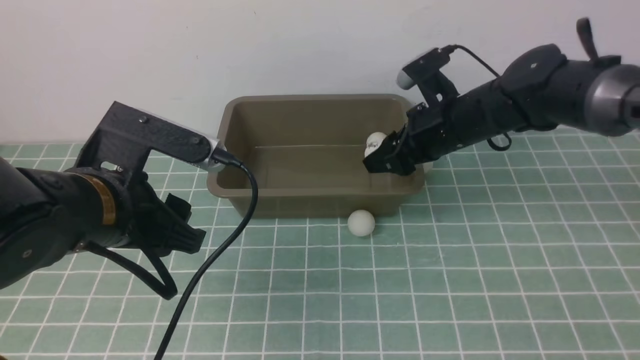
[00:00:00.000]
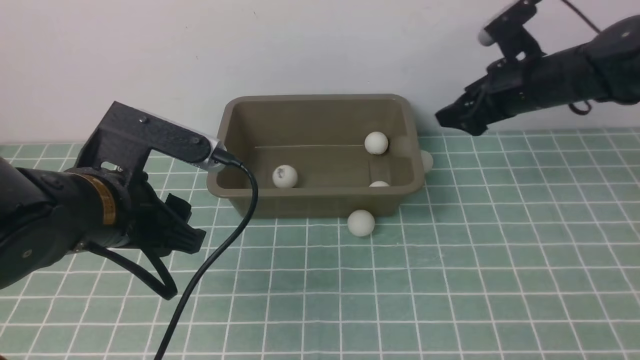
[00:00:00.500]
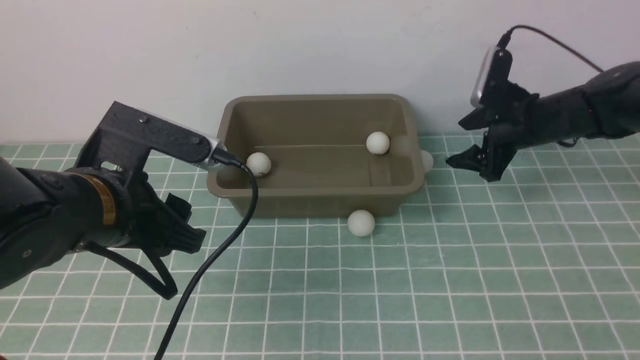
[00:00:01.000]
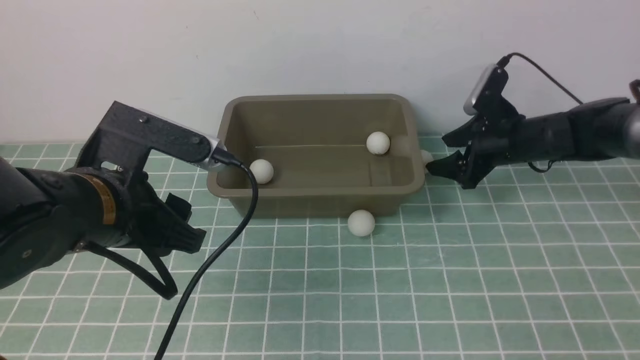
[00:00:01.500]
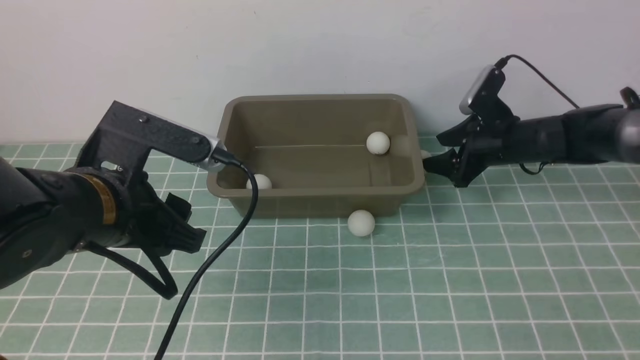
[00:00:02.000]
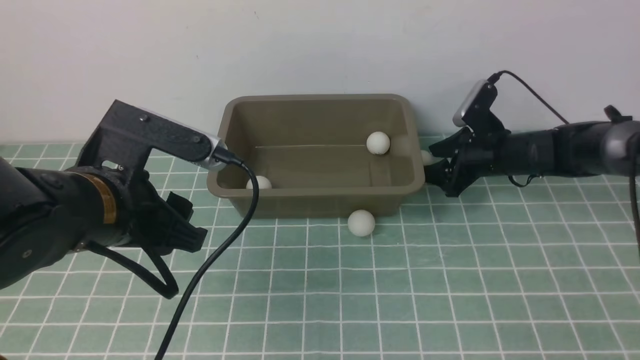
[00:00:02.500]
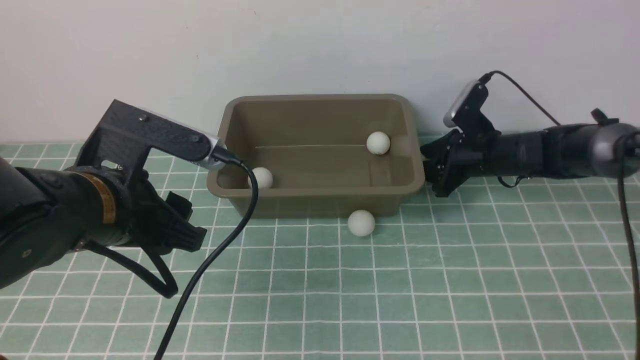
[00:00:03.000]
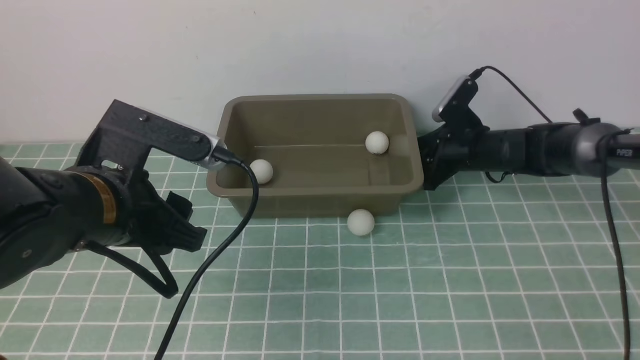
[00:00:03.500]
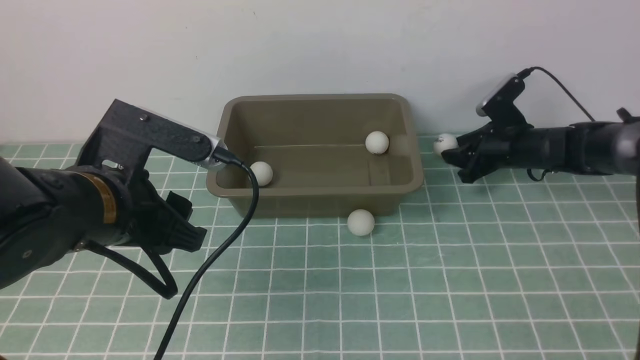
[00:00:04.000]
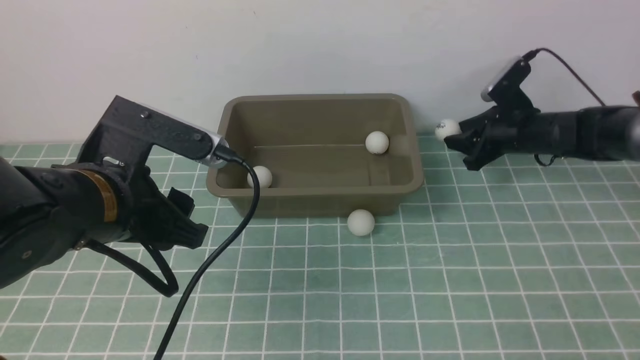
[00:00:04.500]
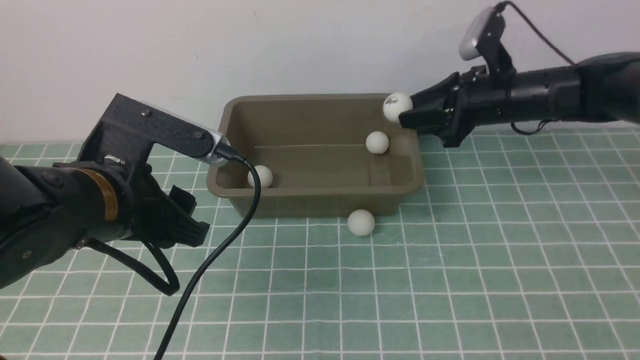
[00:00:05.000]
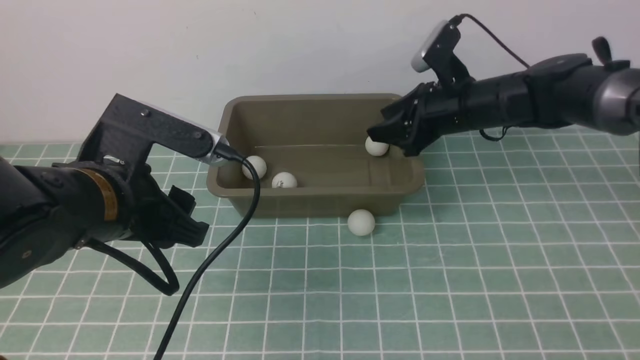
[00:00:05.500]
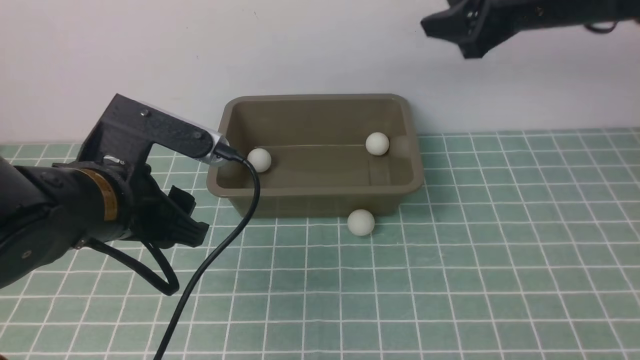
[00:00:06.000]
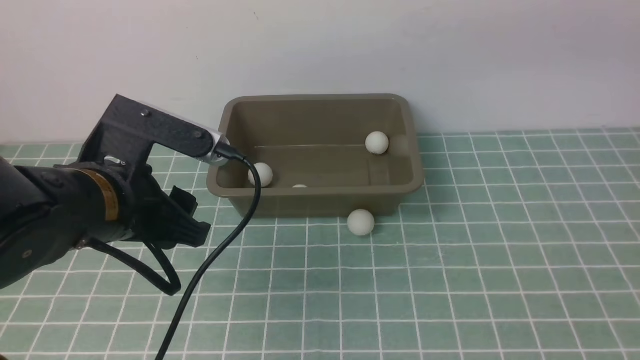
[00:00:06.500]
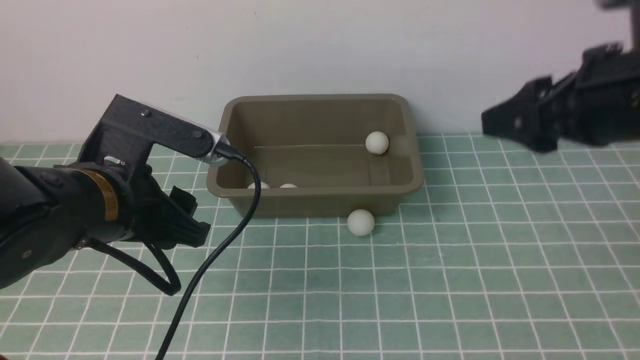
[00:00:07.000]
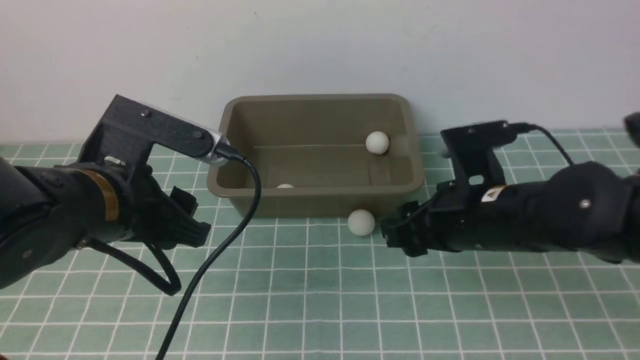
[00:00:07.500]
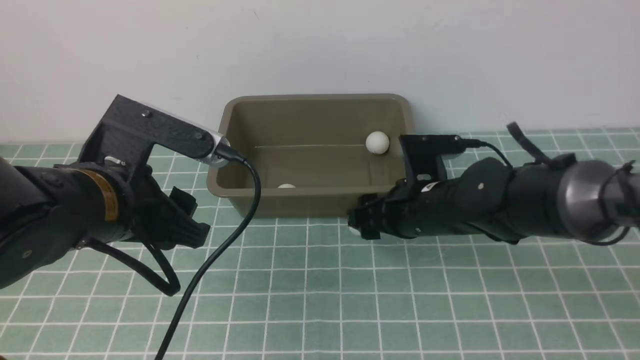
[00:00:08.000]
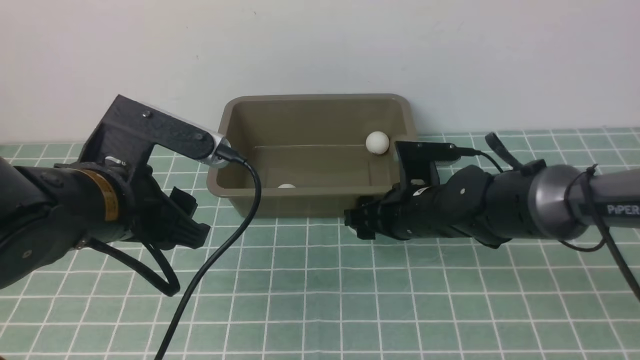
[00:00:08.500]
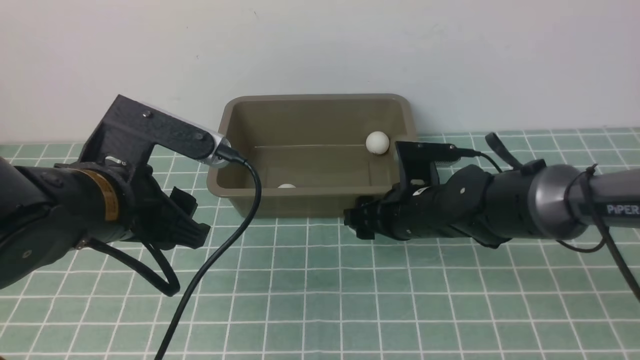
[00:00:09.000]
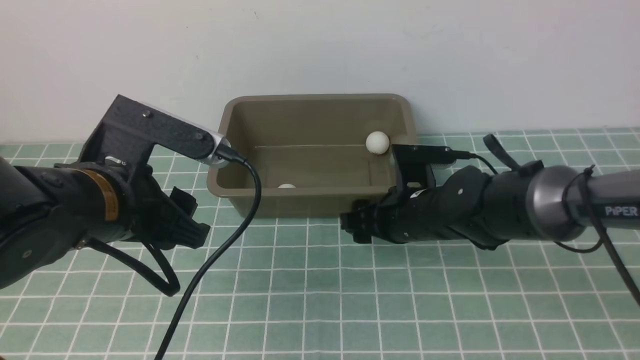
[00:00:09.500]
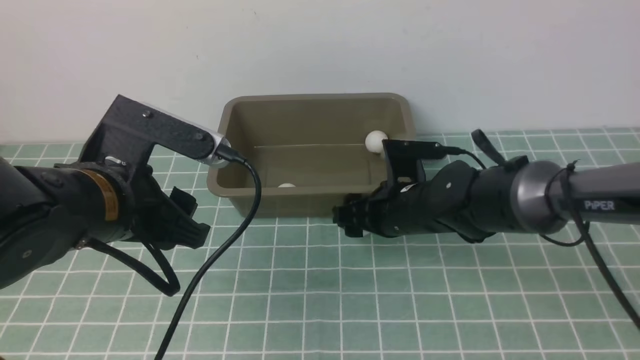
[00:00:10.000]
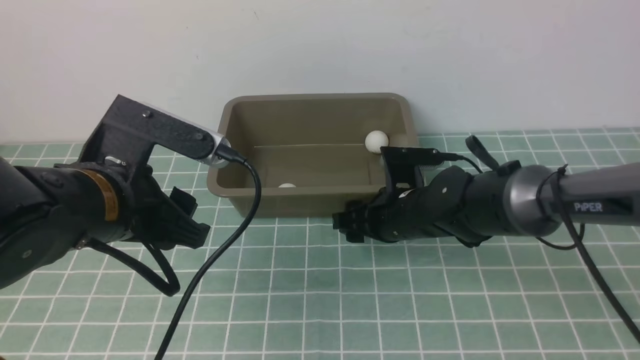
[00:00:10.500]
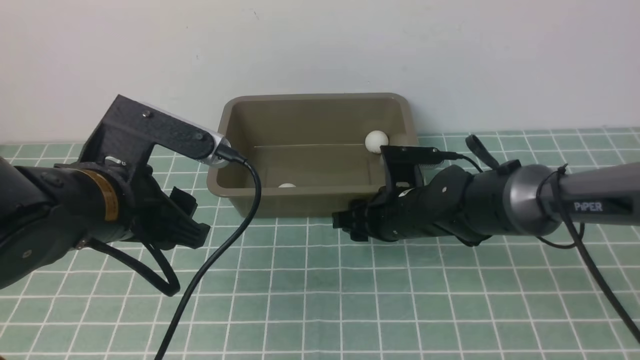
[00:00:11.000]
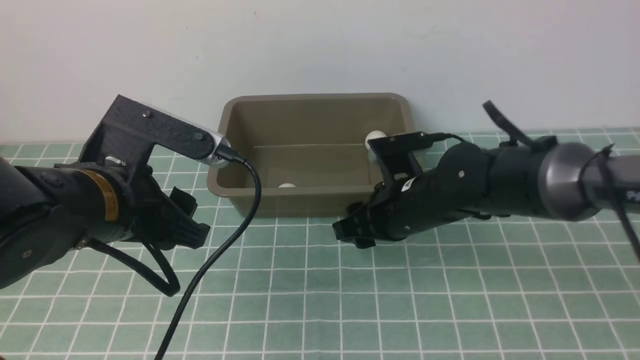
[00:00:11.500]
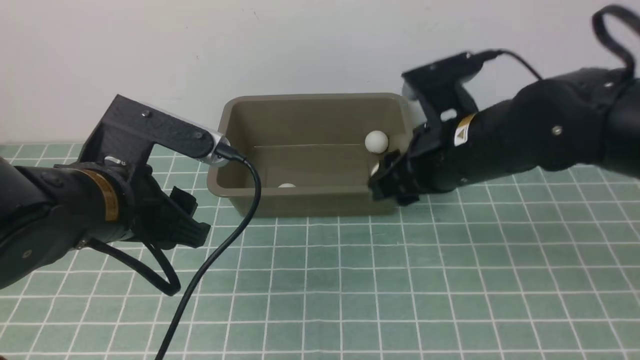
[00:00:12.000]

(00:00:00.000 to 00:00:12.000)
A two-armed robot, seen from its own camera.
Step, 00:00:00.500 - 00:00:04.500: use the right arm to clamp the table tennis ball closest to it.
Step, 00:00:06.000 - 00:00:11.500: use the right arm to clamp the table tennis ball closest to it.
00:00:00.000 - 00:00:02.000: The right gripper shifts some 15 cm to the right, downward and forward.
00:00:02.000 - 00:00:04.000: The right gripper closes up.
00:00:04.000 - 00:00:06.000: The right gripper goes some 30 cm upward and backward, and opens its fingers.
00:00:06.000 - 00:00:08.000: The right gripper travels downward and to the left by roughly 25 cm.
00:00:08.000 - 00:00:10.000: The grippers move only a little.
00:00:10.000 - 00:00:12.000: The right gripper goes about 10 cm upward, and closes up.

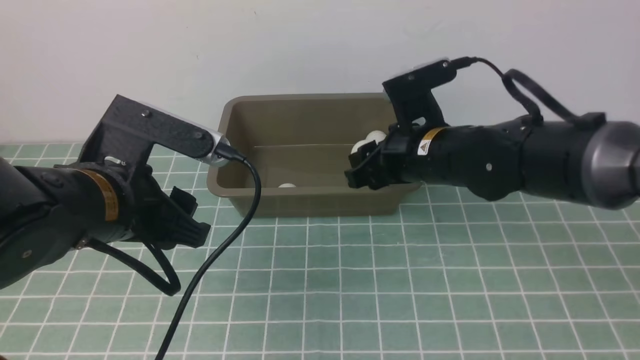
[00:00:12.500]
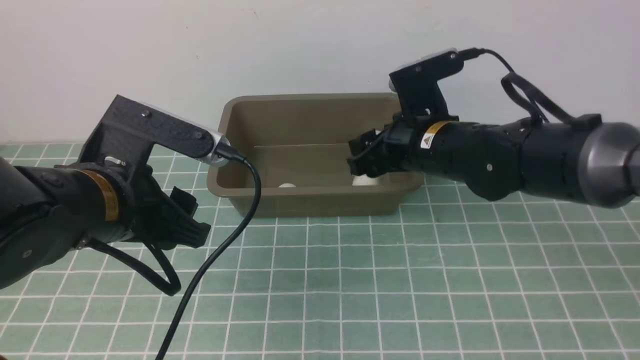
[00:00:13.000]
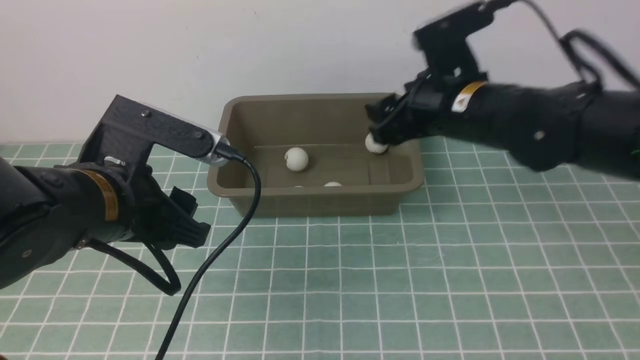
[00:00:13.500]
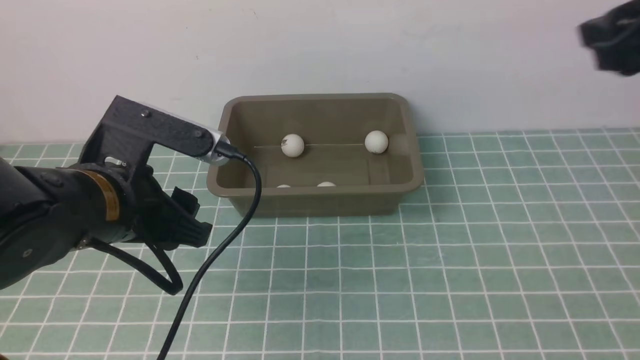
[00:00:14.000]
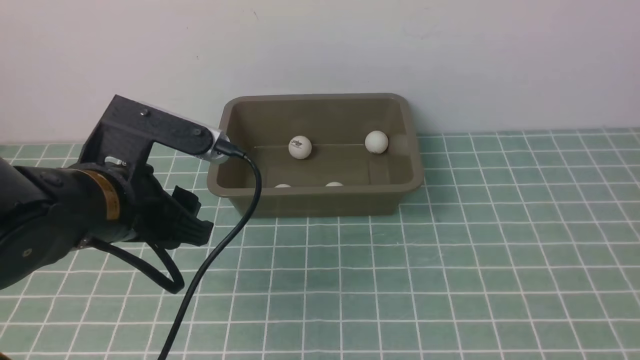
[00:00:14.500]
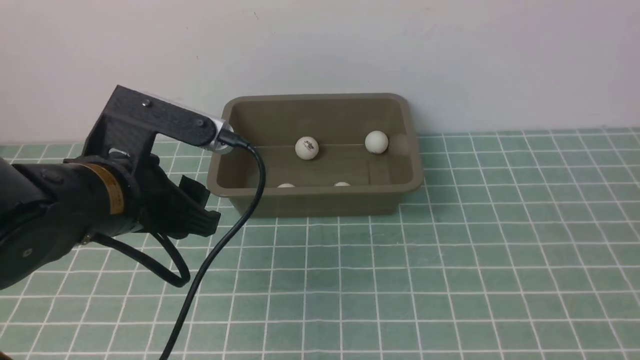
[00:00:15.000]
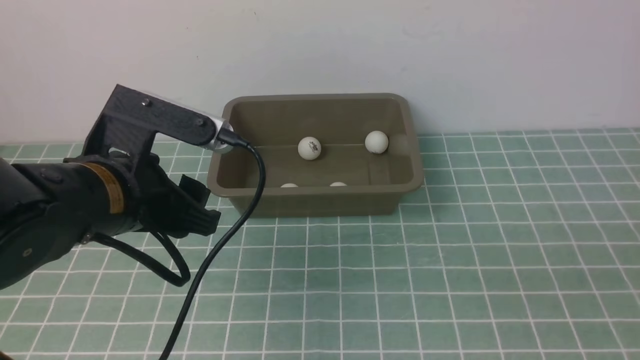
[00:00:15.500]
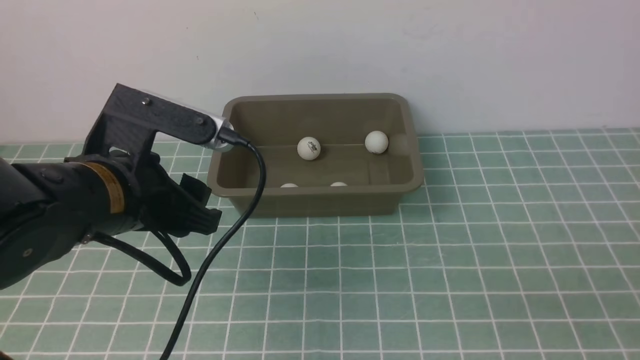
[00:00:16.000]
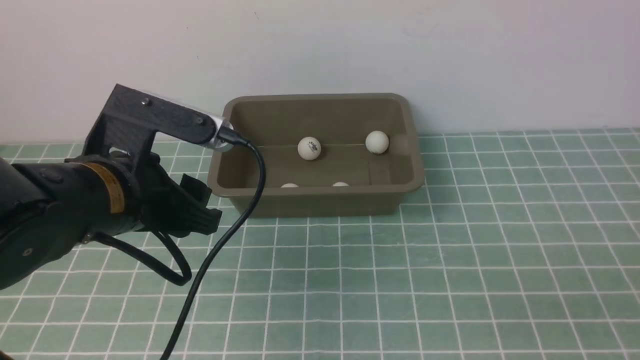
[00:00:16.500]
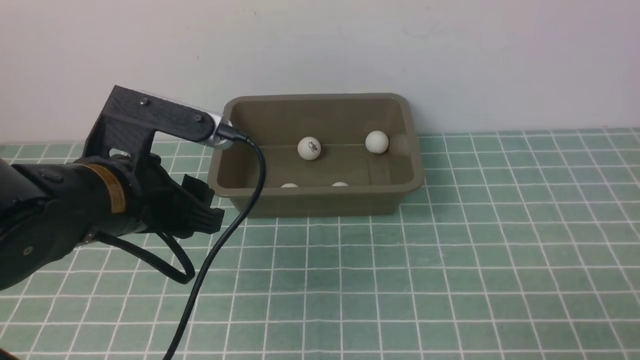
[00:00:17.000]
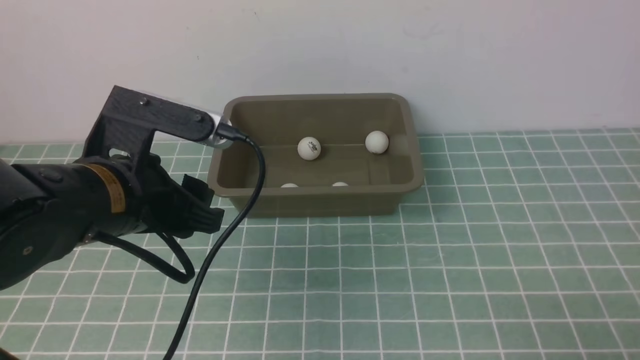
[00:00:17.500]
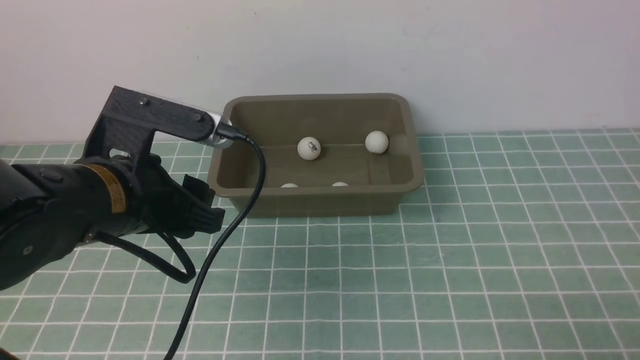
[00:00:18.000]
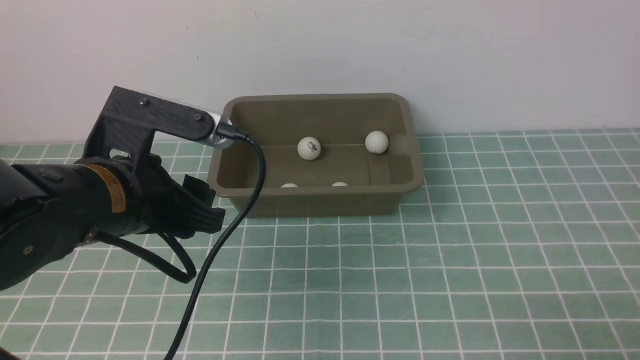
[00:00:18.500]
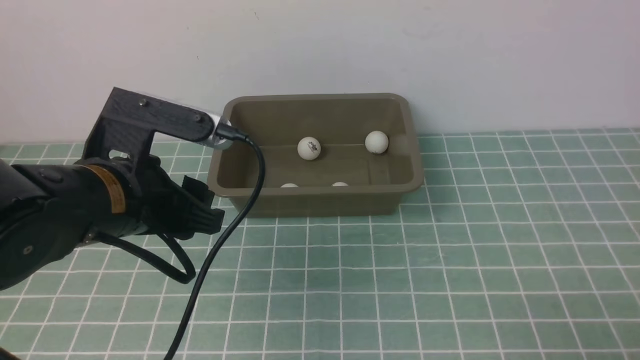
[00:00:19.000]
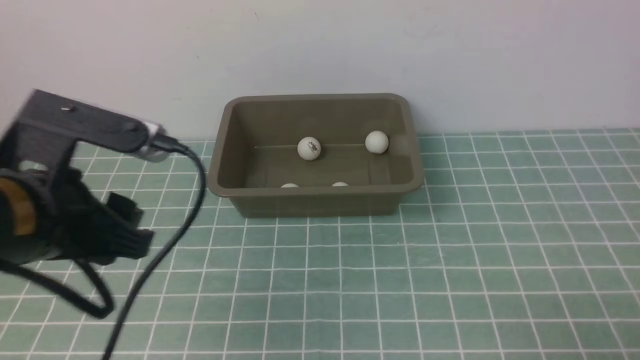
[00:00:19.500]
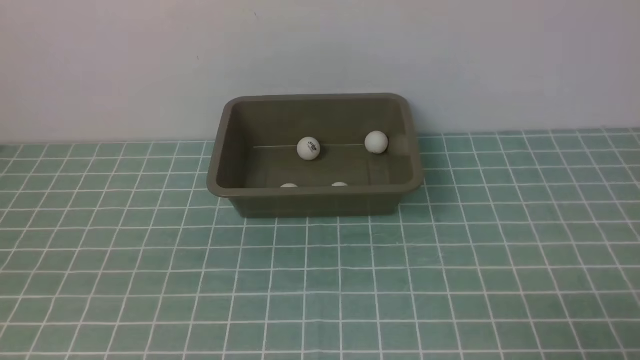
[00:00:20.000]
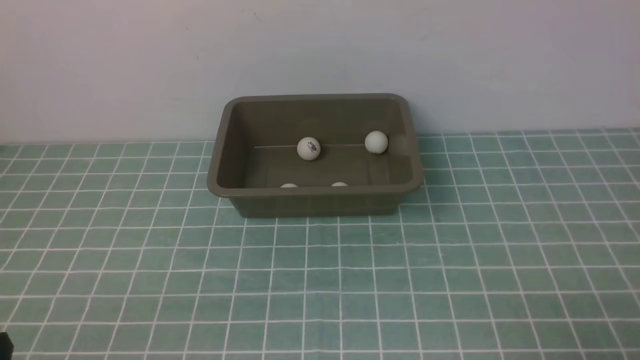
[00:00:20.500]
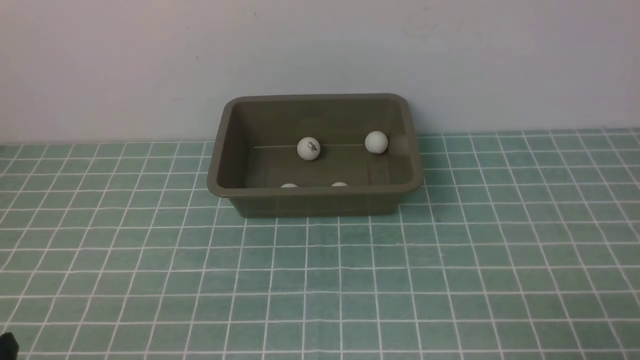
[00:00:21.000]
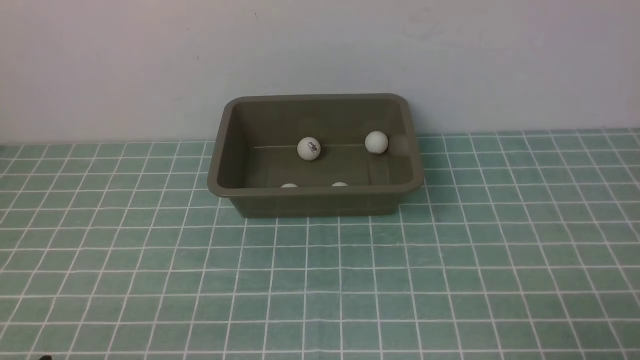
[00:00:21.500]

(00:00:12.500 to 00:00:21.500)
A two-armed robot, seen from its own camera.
00:00:12.500 - 00:00:14.500: The right gripper is displaced backward, upward and to the right by approximately 40 cm, and opens, then closes again.
00:00:14.500 - 00:00:17.000: The right gripper travels downward by about 25 cm.
00:00:17.000 - 00:00:19.500: The left gripper is displaced backward by approximately 5 cm.
00:00:19.500 - 00:00:21.500: The left gripper heads downward and backward, covering some 20 cm.
